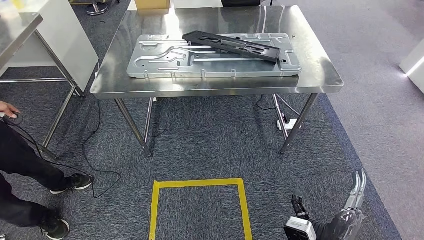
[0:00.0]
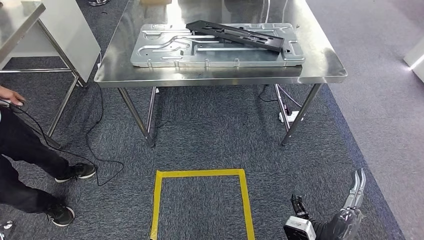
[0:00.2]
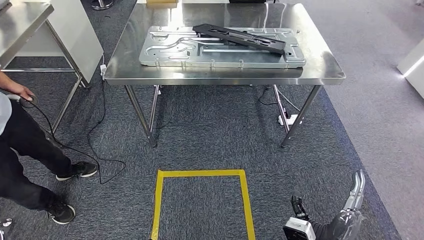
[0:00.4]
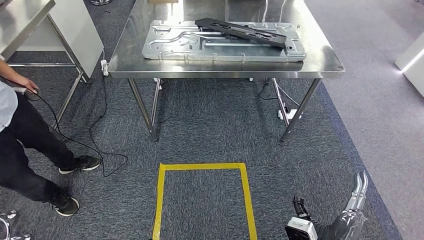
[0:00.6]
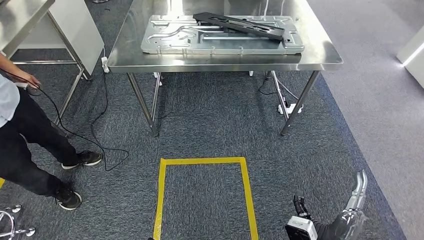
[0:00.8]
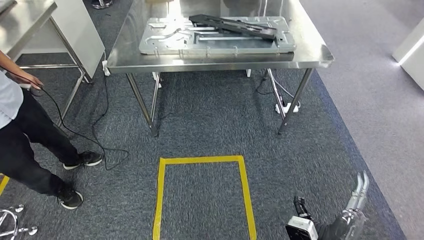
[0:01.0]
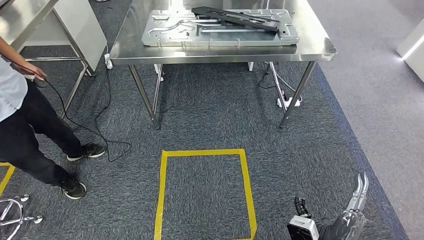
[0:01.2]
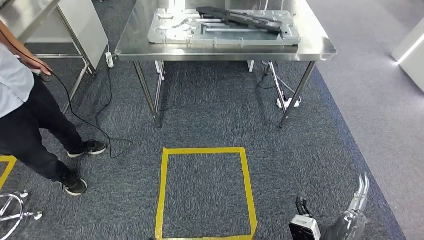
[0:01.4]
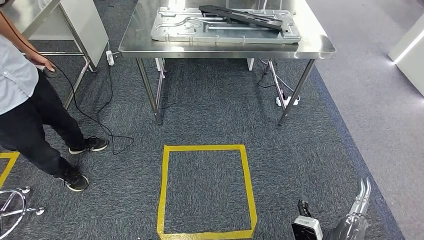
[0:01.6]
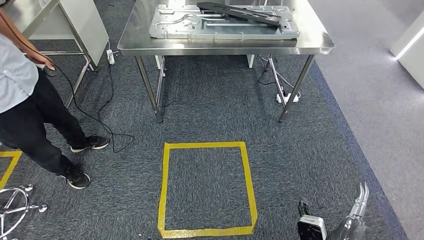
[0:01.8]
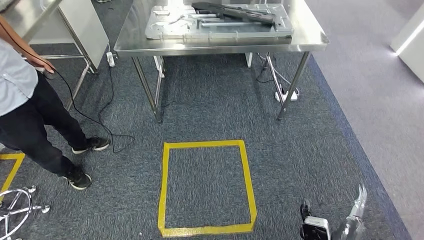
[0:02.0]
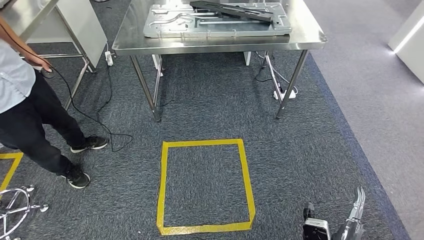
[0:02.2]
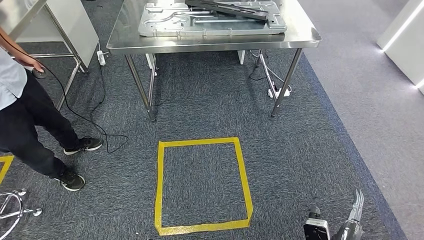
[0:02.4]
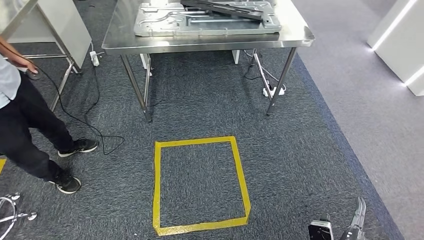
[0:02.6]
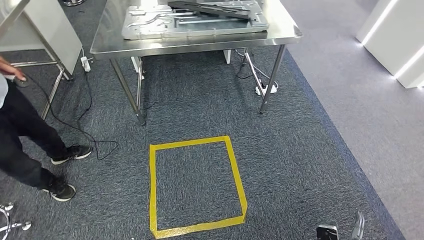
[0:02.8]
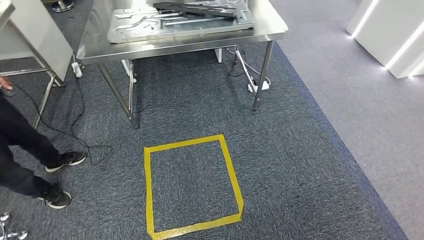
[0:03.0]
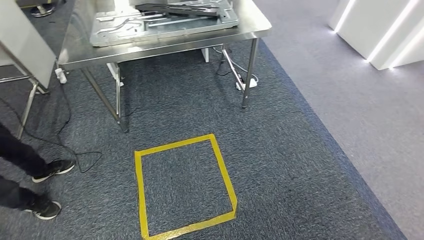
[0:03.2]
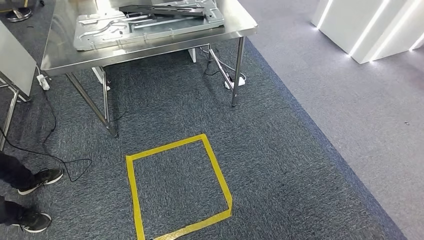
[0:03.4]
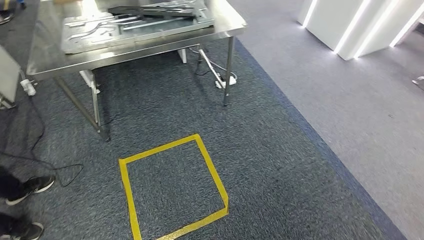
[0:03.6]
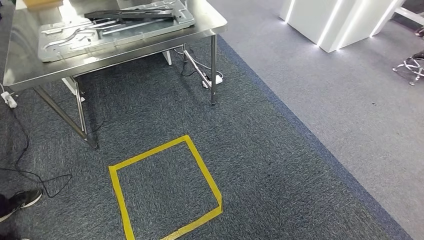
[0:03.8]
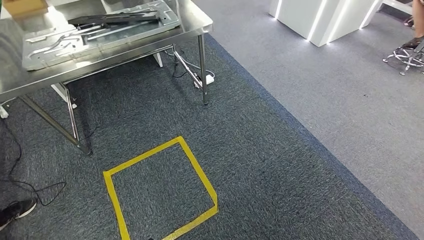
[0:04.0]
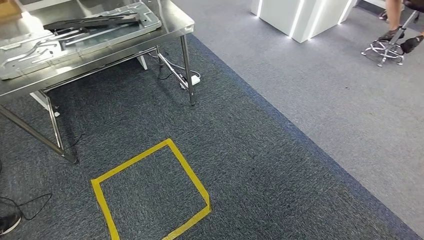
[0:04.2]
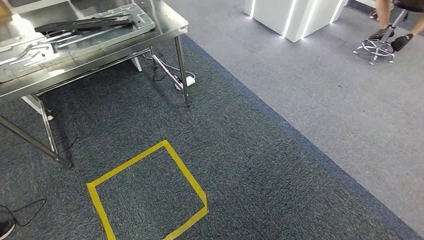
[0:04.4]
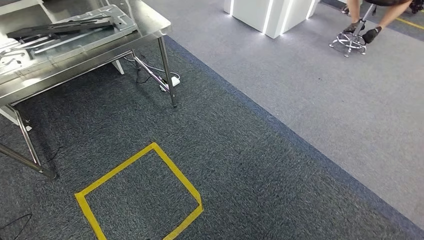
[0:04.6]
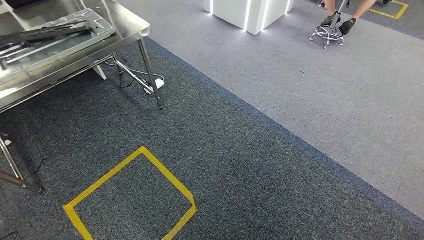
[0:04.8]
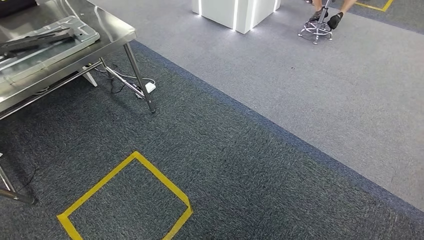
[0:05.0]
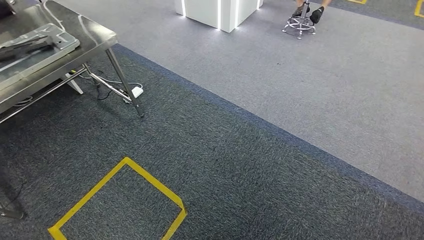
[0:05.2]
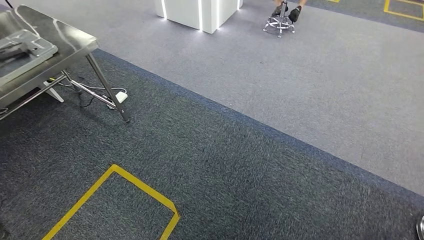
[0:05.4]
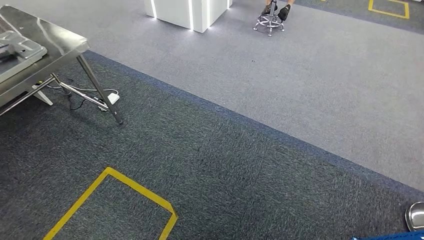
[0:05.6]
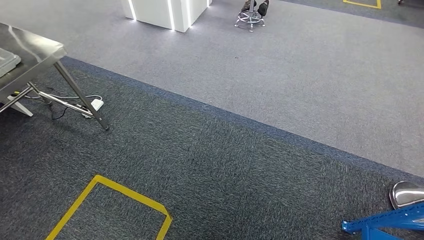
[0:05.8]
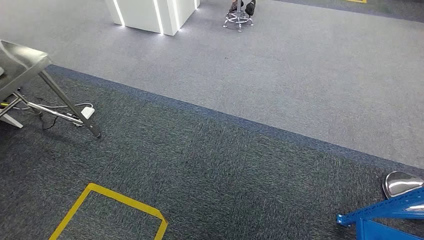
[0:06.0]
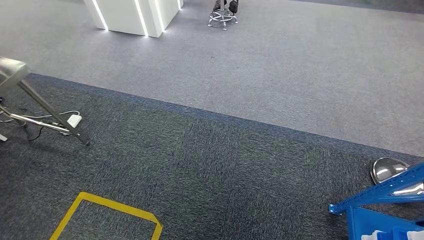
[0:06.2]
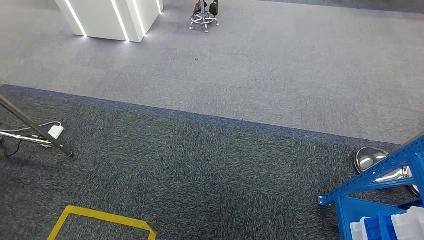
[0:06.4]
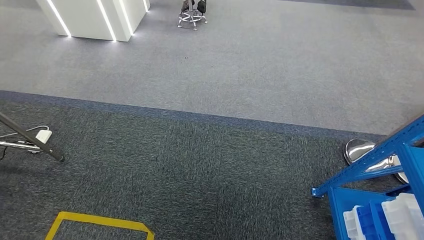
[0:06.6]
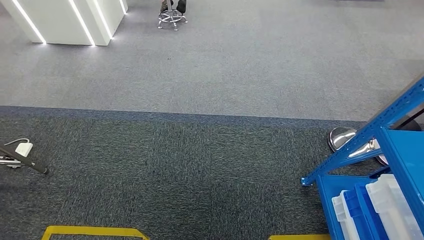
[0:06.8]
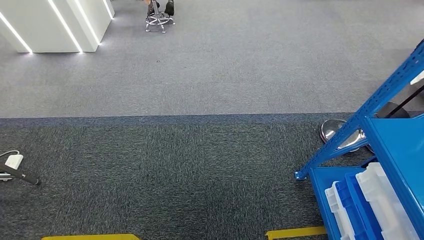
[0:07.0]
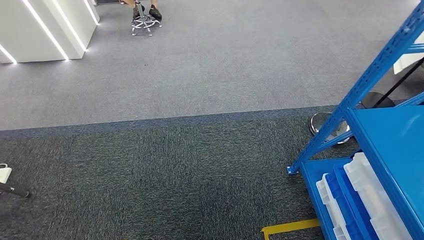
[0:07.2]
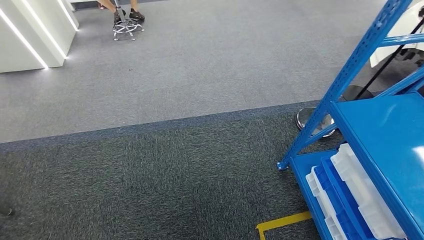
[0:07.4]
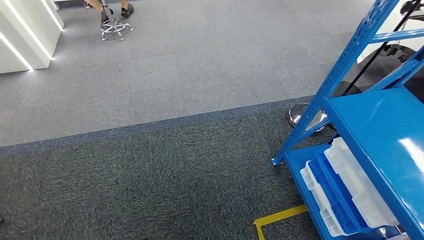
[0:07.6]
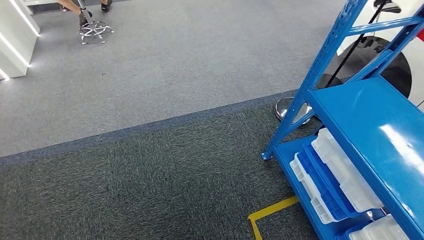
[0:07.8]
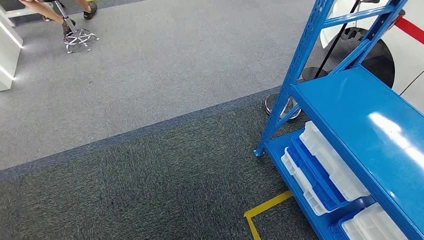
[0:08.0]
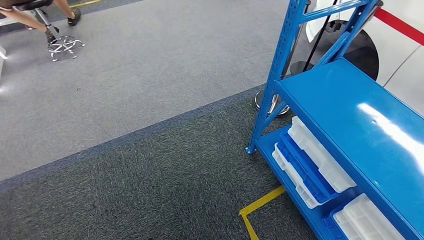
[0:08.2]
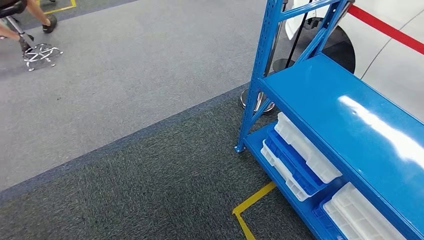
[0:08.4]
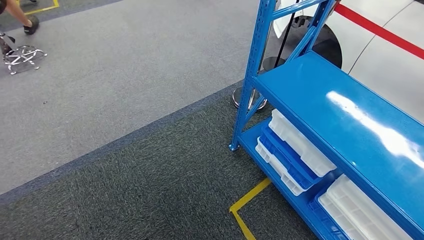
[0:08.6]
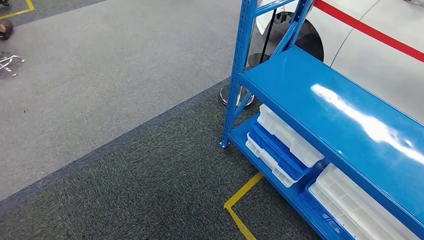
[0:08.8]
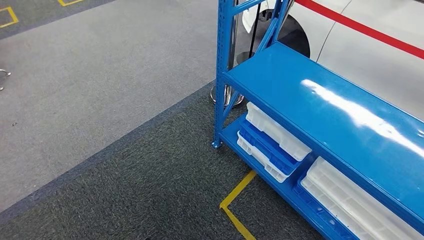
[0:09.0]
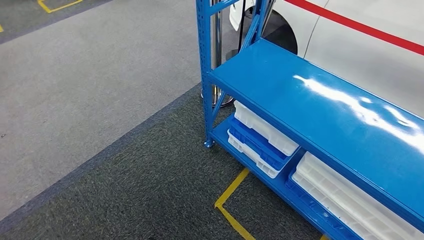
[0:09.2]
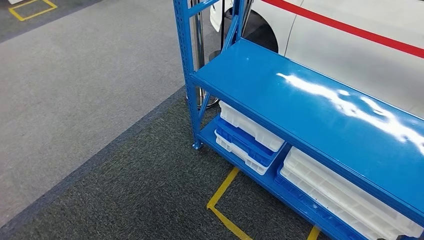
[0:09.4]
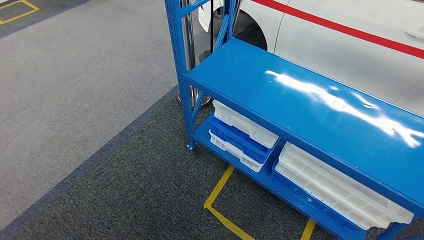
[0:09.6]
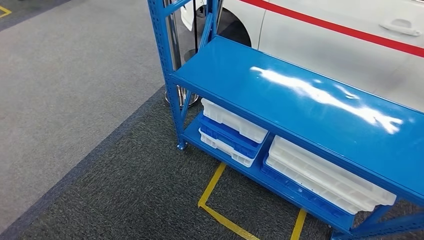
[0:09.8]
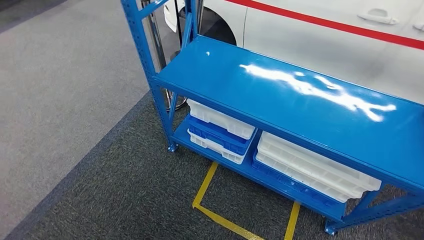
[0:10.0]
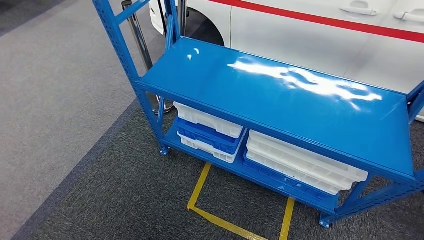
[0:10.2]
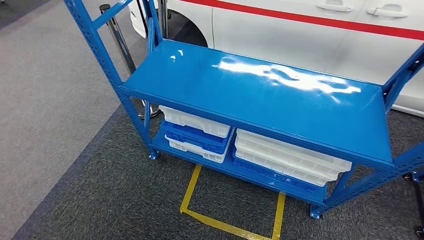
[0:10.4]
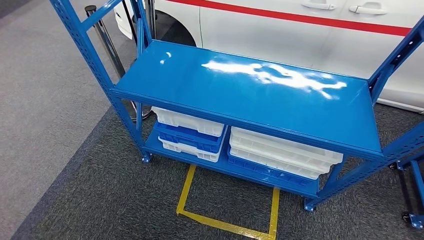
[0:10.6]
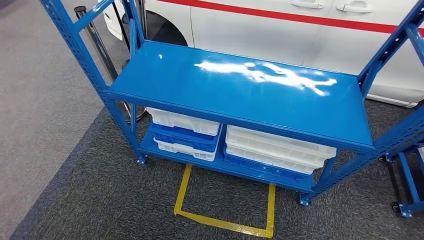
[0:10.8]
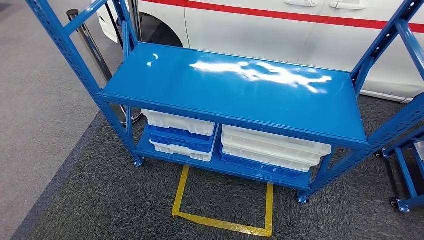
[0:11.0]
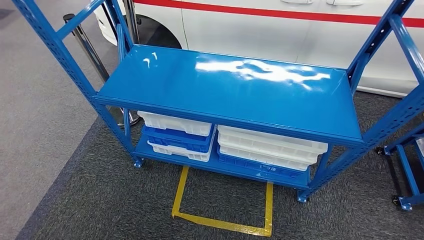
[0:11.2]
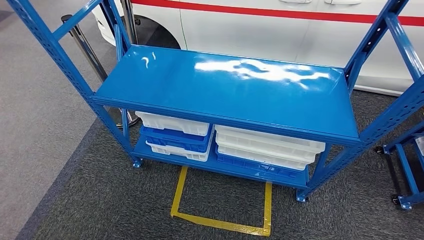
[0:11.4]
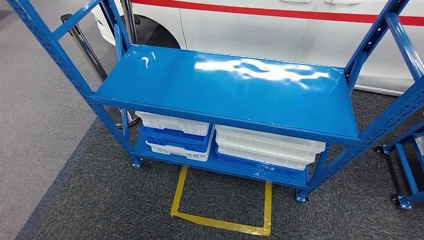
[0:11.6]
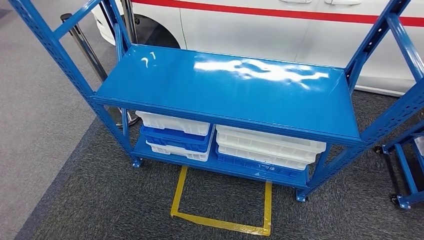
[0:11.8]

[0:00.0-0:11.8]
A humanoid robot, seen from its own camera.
Step, 0:00.0 to 0:11.8: Return to the initial position at the shelf.

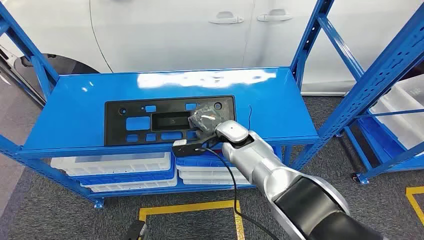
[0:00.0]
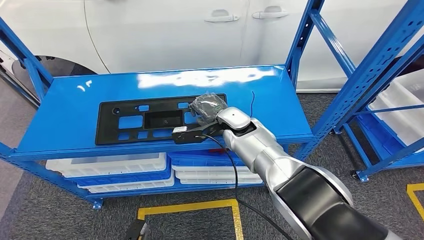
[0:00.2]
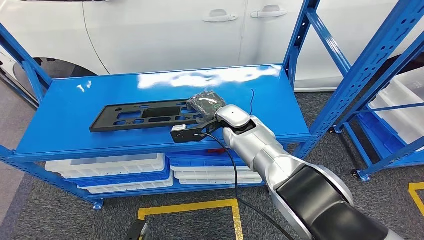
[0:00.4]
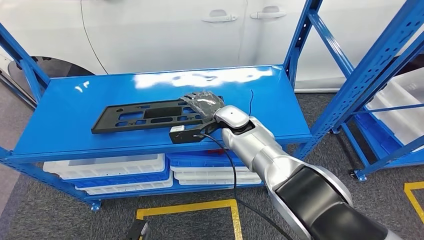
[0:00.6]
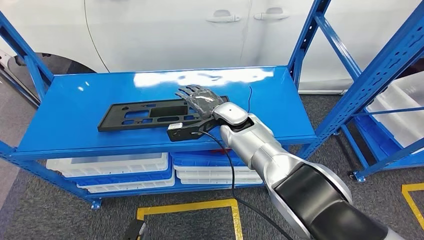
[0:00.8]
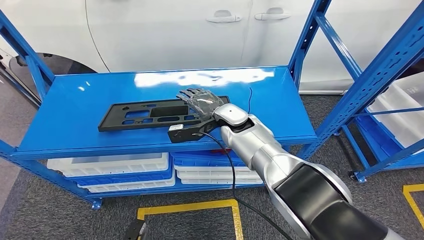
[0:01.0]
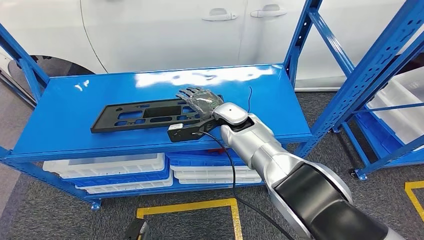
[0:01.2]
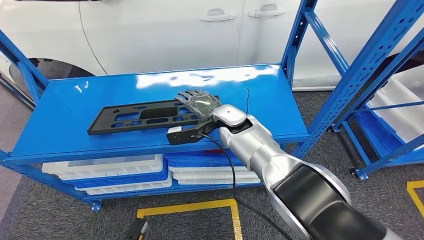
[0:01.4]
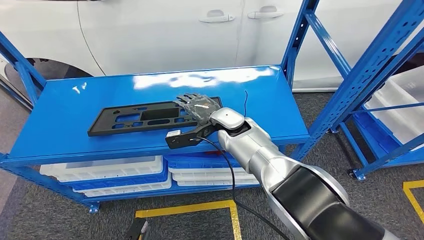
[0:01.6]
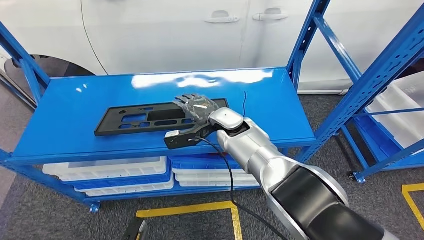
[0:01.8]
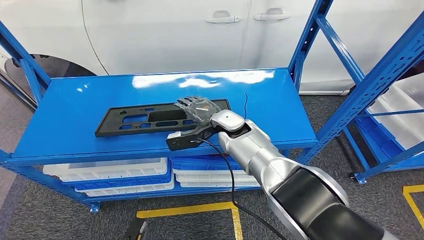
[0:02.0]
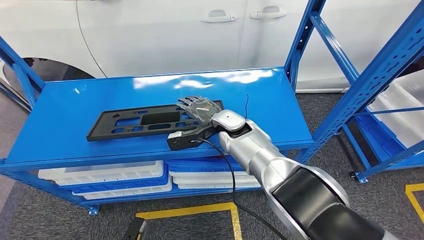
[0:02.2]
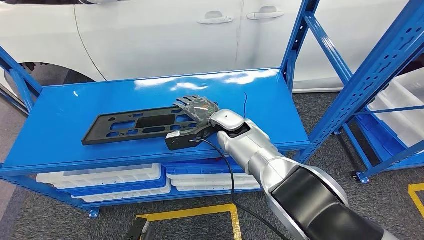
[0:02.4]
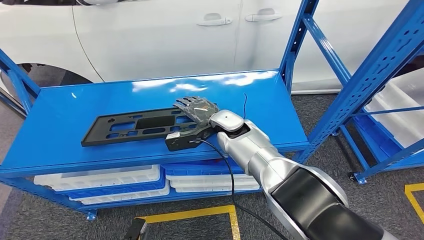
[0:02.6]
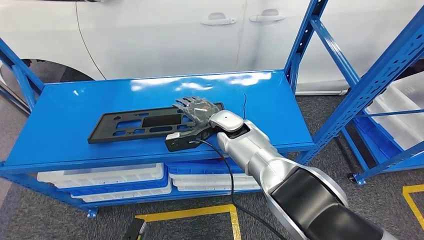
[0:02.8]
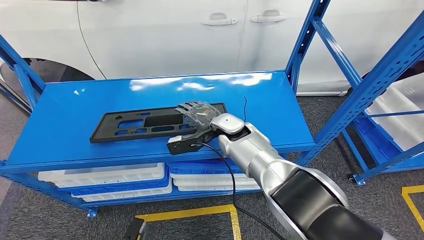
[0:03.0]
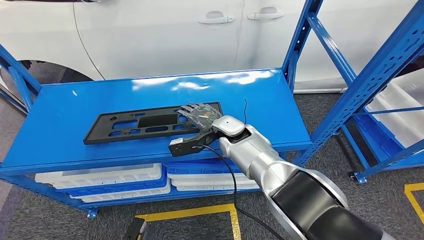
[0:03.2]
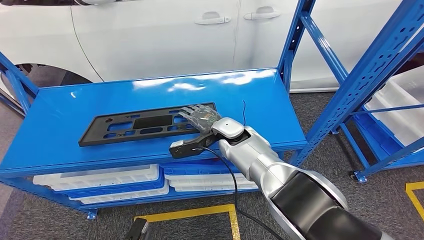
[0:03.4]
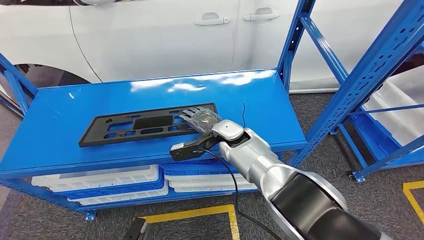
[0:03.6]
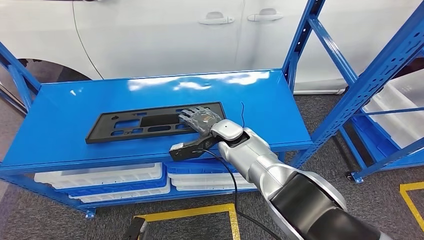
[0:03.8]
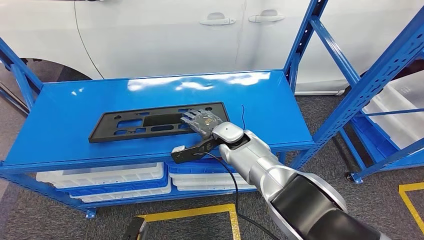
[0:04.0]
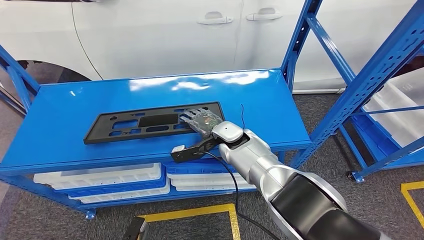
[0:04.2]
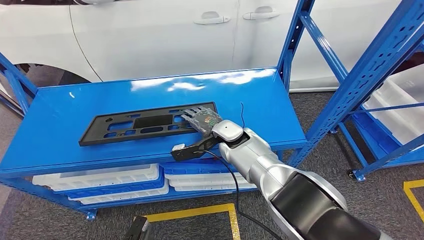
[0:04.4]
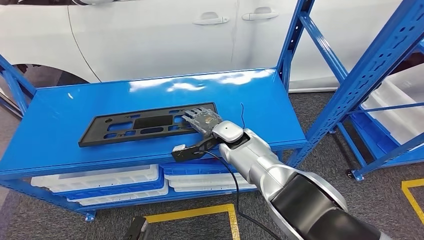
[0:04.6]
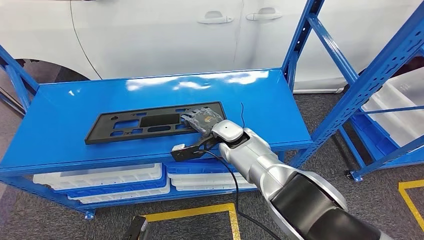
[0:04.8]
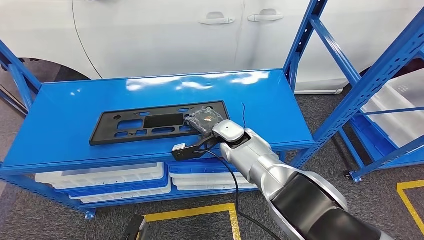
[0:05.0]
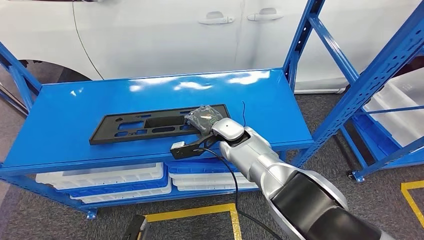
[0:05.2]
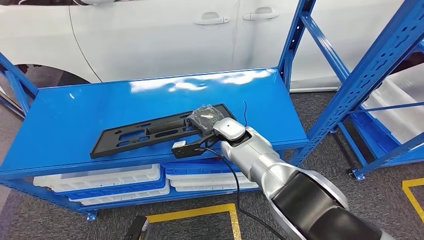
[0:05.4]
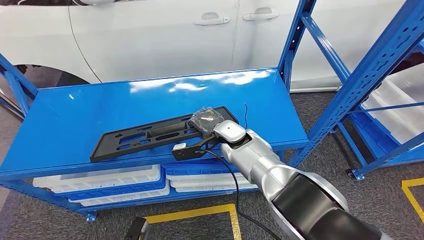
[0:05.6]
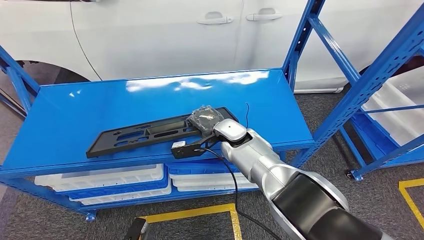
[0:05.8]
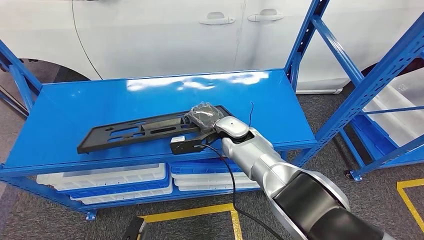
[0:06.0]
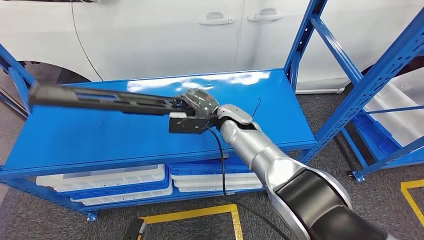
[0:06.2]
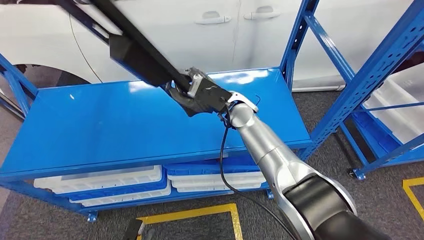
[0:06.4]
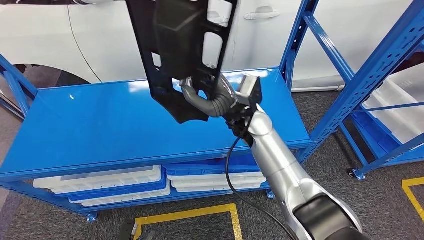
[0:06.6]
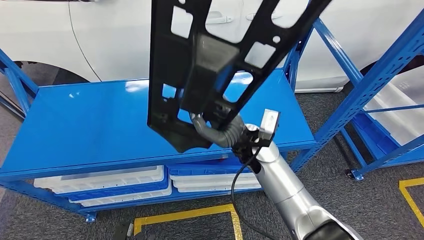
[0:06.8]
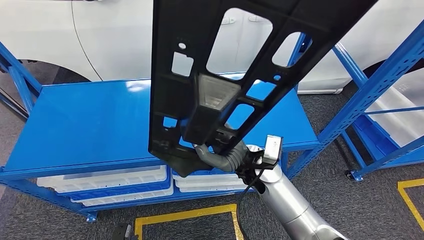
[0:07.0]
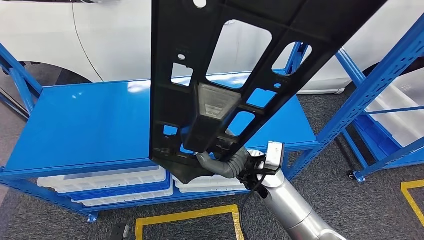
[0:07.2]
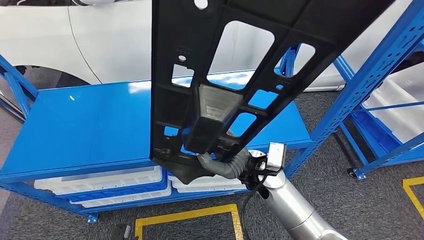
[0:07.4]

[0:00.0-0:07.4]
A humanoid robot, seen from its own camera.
Step, 0:00.0 to 0:06.8: Pick up the large parts from the shelf.
